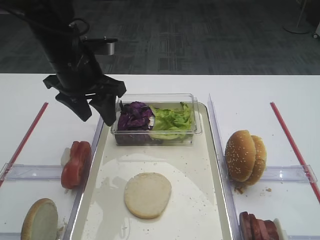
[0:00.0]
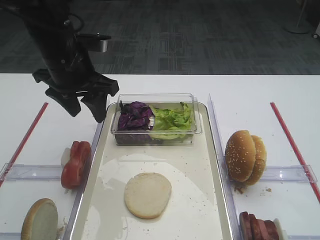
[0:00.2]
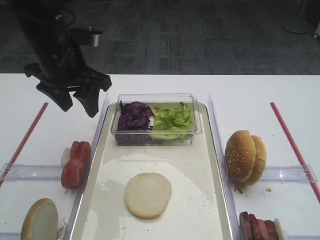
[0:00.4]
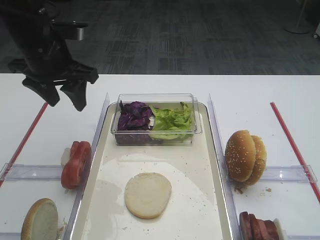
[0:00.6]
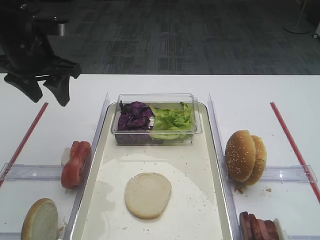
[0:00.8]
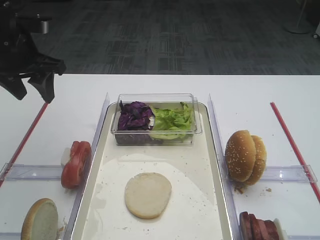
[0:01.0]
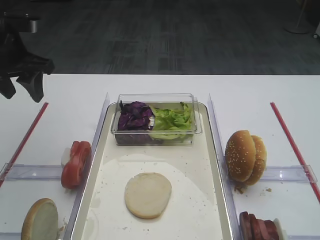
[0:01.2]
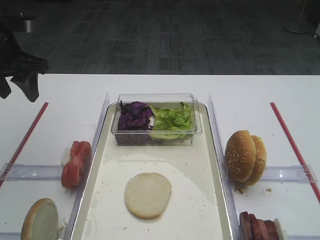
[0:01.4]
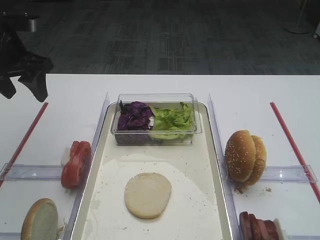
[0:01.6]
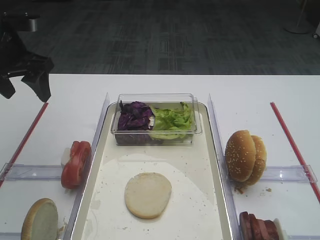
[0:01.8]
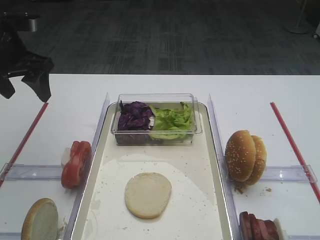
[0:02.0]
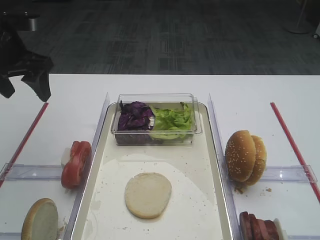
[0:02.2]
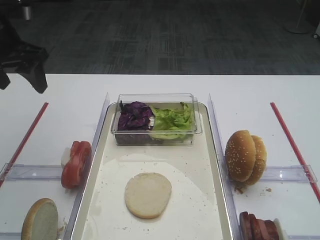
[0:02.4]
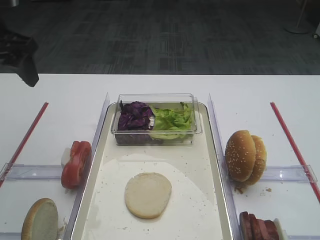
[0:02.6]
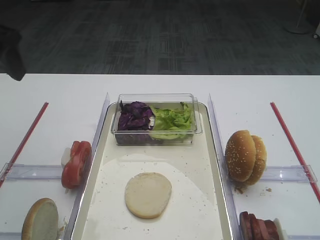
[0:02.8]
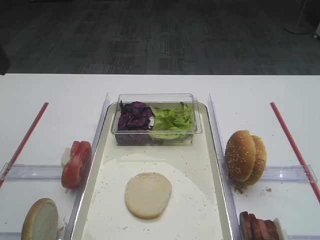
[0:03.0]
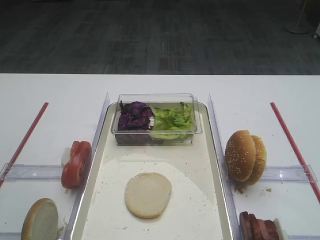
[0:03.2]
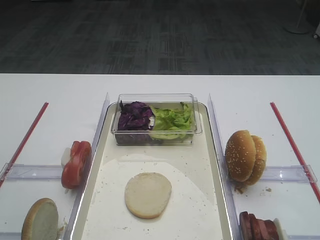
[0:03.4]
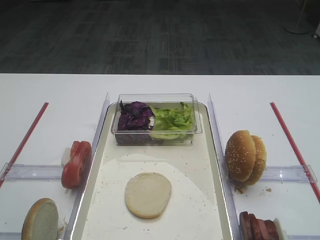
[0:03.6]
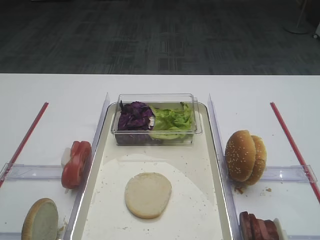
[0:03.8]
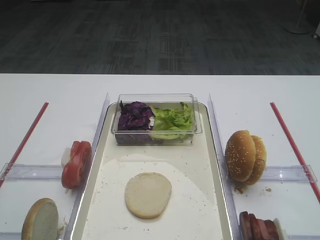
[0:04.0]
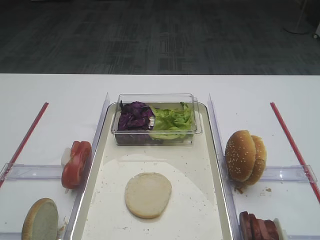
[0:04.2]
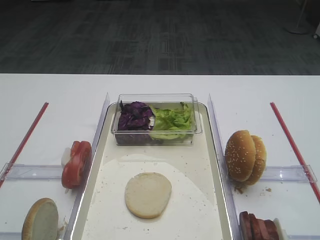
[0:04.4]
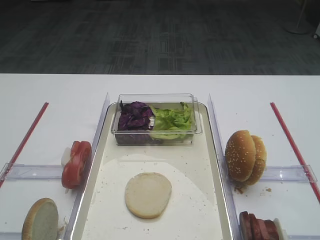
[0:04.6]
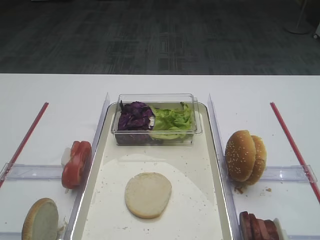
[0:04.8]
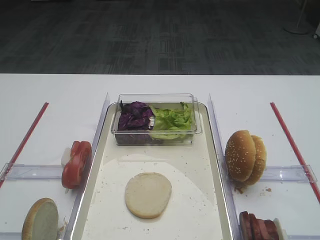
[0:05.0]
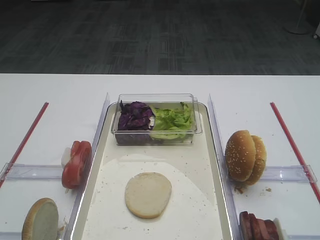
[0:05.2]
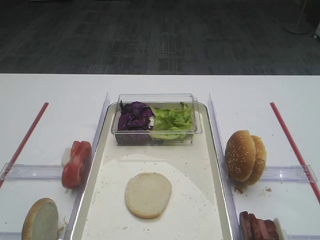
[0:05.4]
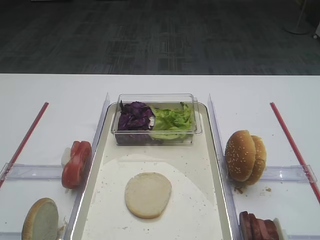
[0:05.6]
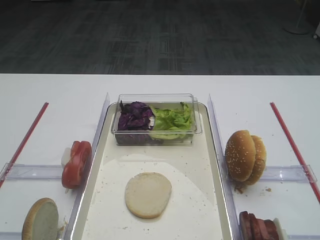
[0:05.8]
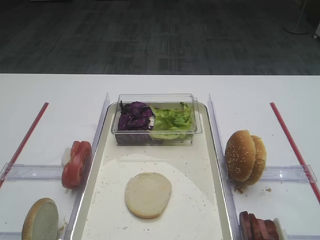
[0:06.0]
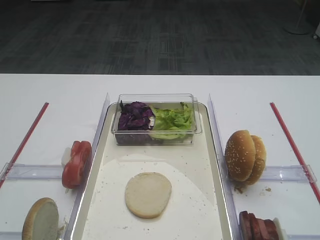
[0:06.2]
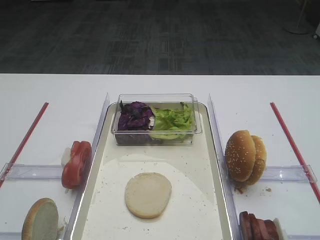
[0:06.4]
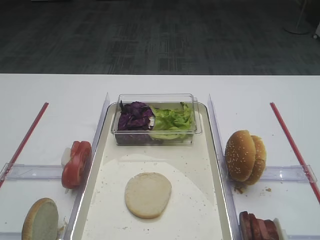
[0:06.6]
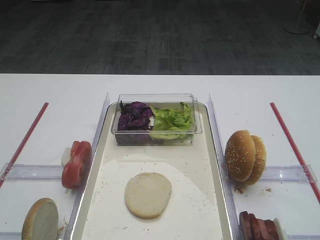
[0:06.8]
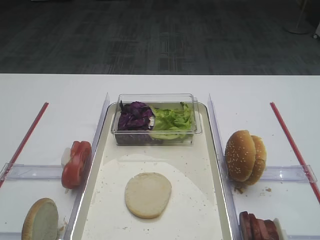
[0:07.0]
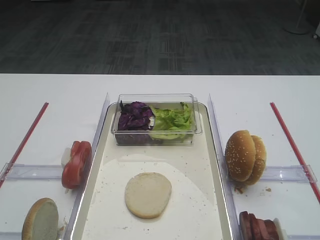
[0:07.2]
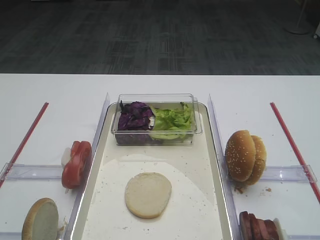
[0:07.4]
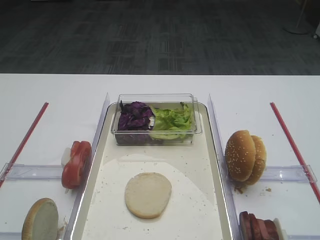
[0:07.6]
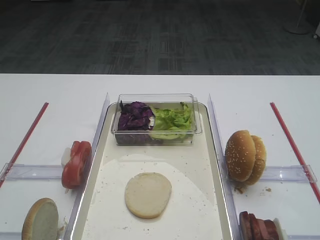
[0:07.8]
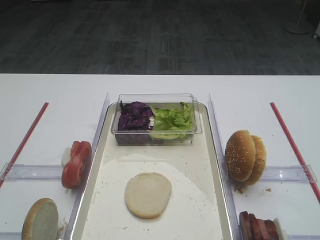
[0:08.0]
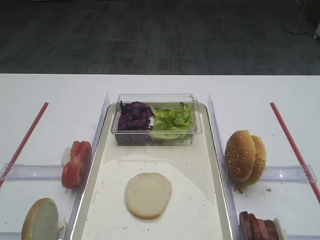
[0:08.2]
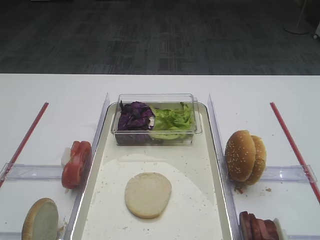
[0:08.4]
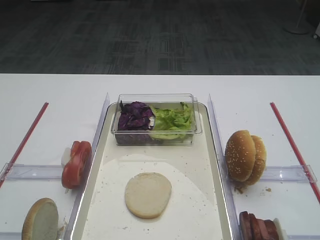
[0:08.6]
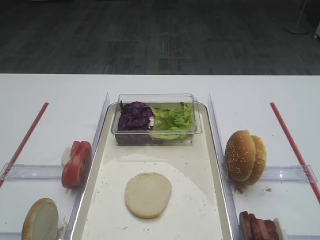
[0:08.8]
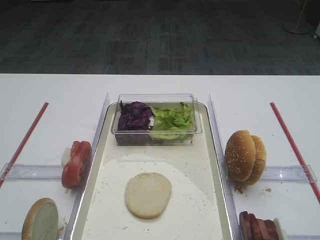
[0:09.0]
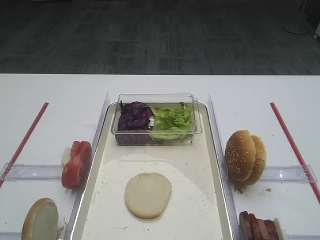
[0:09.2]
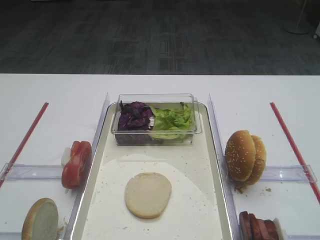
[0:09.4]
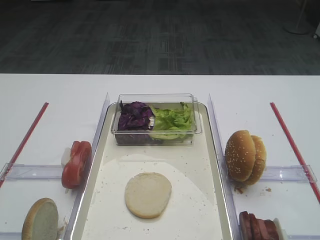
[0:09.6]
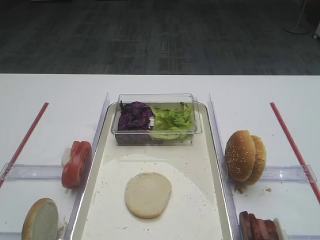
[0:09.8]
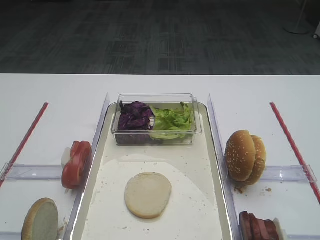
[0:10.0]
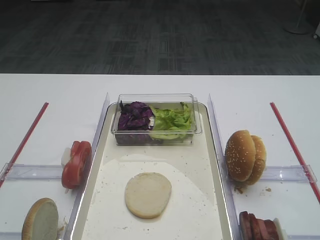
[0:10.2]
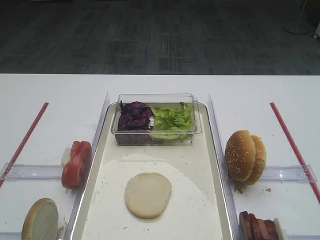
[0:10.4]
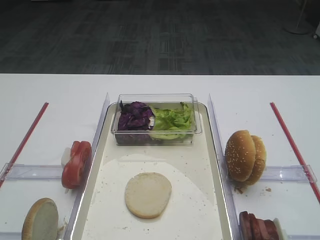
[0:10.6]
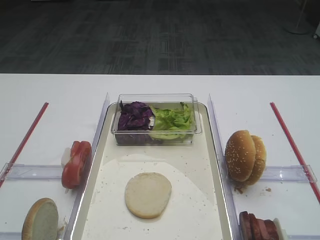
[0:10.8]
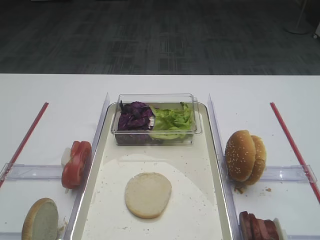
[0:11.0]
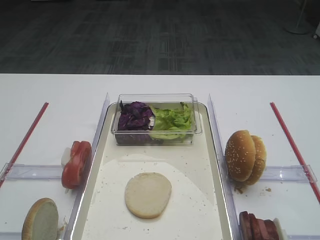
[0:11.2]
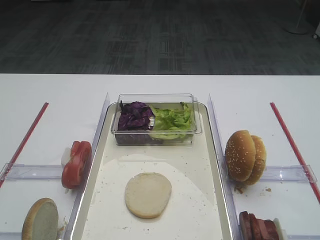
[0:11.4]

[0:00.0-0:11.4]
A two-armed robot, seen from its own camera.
0:00.0 to 0:01.4: The left gripper heads to the left, covering roughly 15 cm.
0:01.4 to 0:02.8: The left gripper moves backward and upward, approximately 10 cm.
0:07.2 to 0:11.4: The two grippers keep their place.
